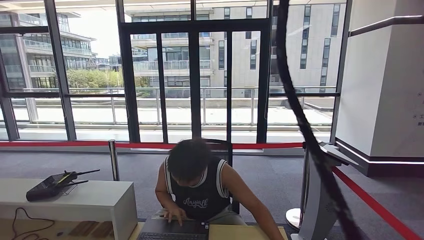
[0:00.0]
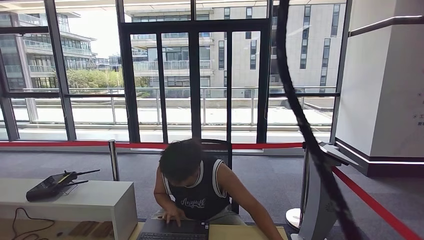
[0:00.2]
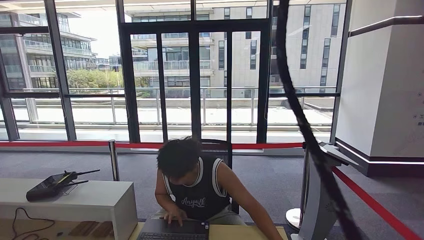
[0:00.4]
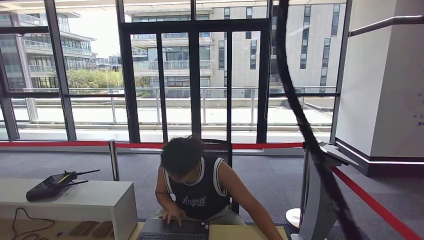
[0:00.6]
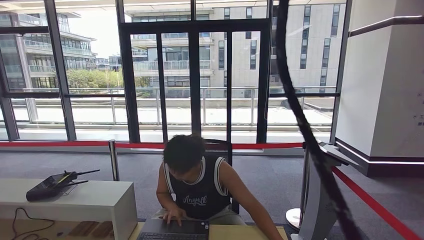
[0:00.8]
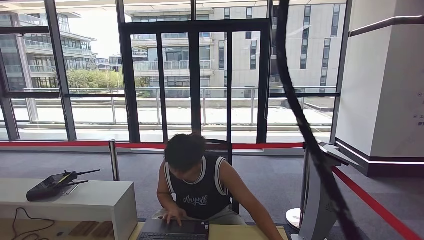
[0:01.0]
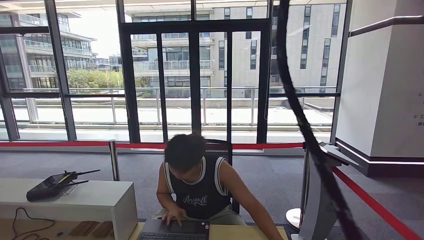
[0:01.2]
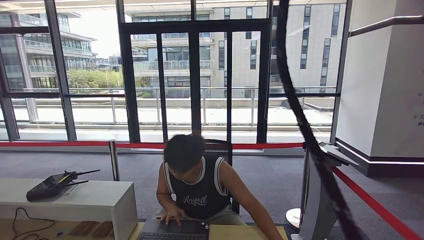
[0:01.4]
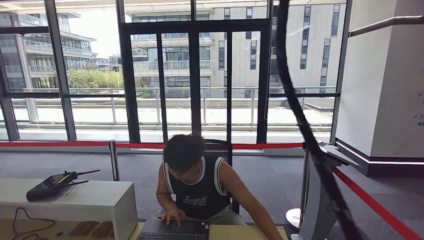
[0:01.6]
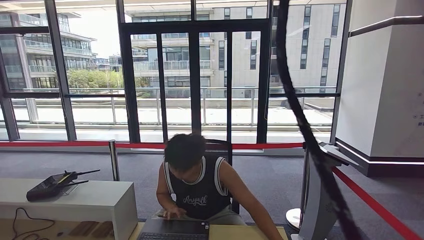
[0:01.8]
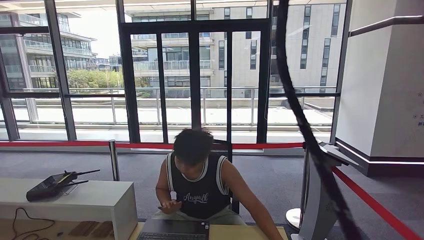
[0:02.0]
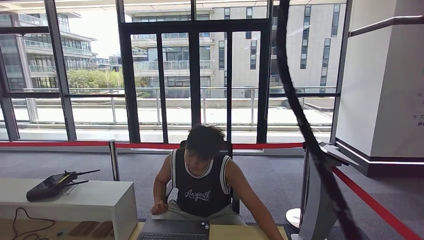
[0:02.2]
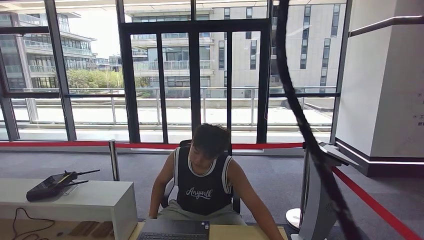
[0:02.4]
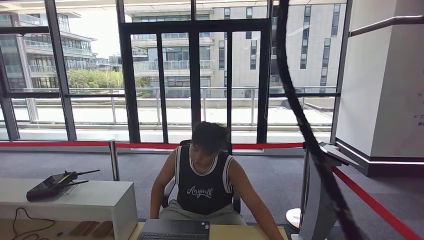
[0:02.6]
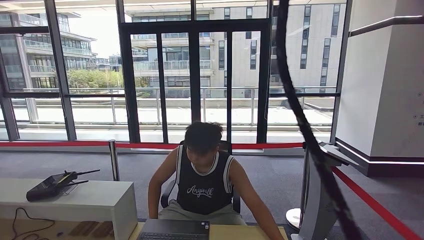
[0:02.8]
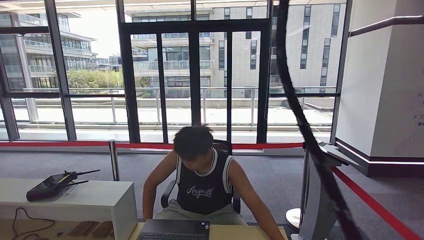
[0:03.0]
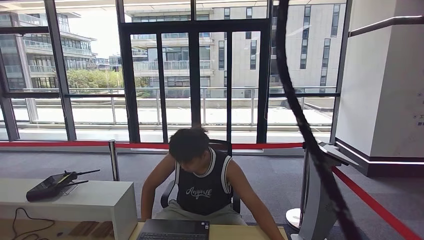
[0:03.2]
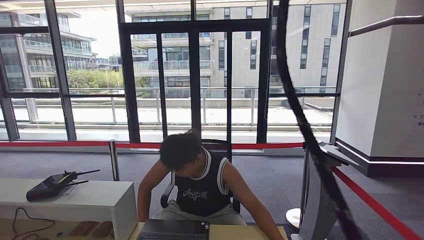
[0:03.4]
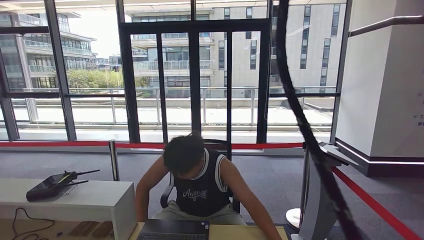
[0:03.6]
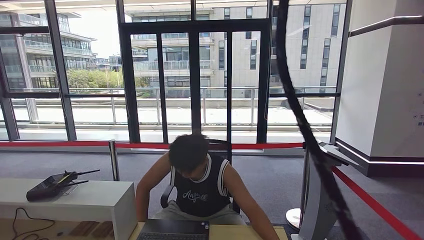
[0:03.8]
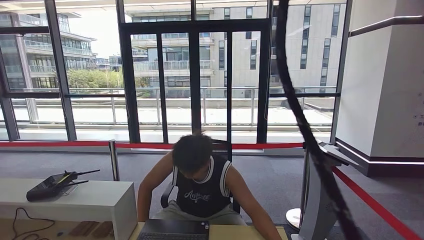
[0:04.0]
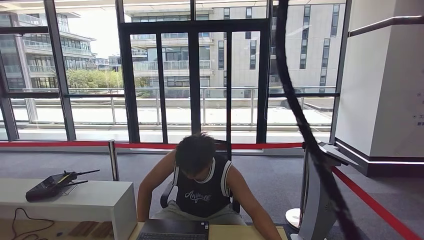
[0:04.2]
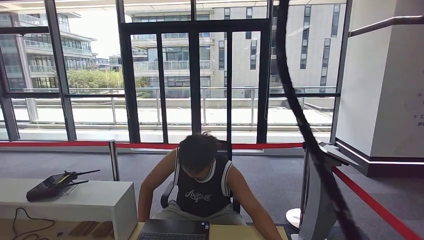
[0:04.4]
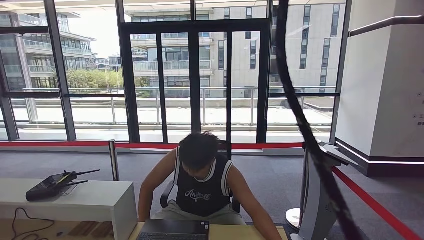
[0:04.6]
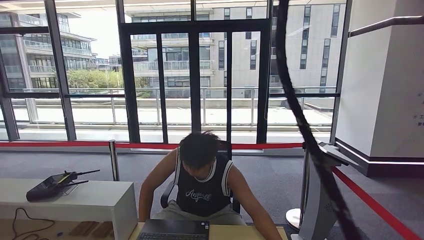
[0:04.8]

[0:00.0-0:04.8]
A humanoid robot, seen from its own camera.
Step, 0:00.0 to 0:04.8: Hand the room key to the person.
0:00.0 to 0:04.8: The hands stay close to where they were, moving slightly.
